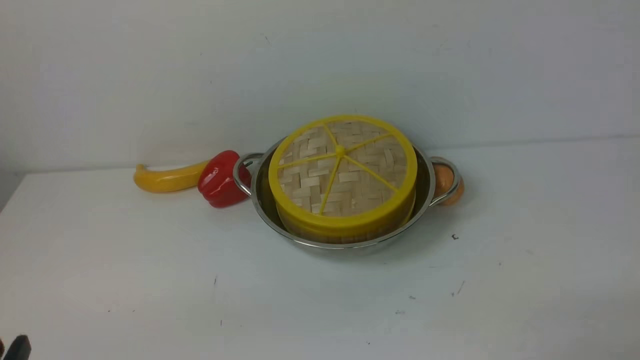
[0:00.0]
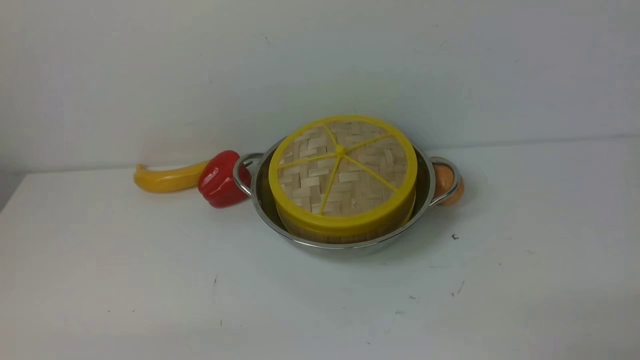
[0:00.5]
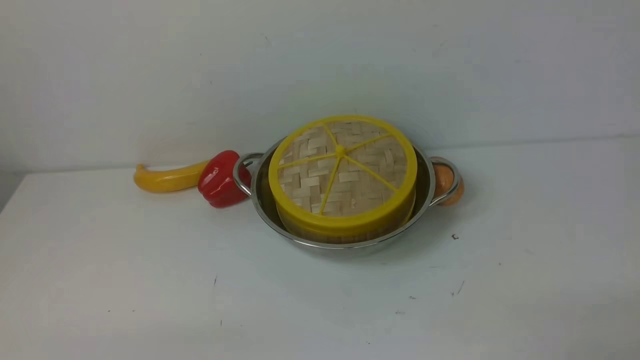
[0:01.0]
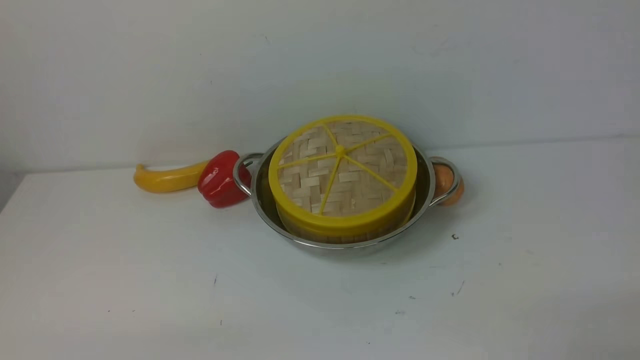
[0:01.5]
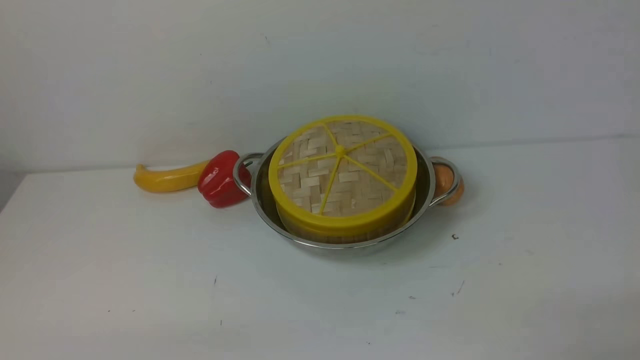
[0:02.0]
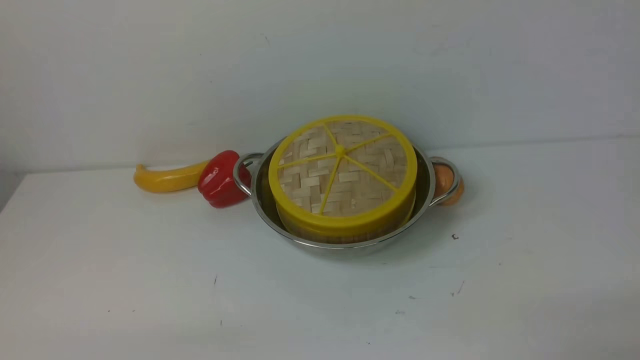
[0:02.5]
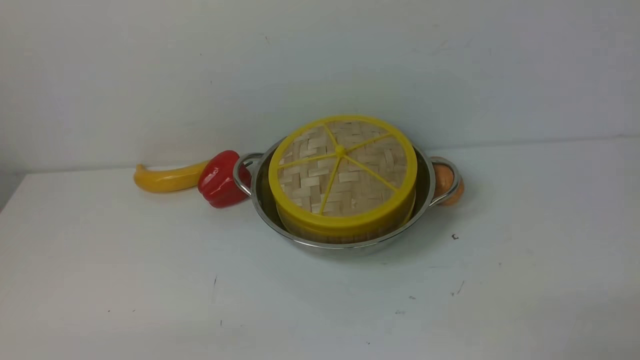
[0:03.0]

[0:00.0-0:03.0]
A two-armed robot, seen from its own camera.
Task of the whole recording: place the steamer in the pot on the white table, and put the lid on the steamer.
0:01.5 to 0:03.0: The two grippers keep their place.
